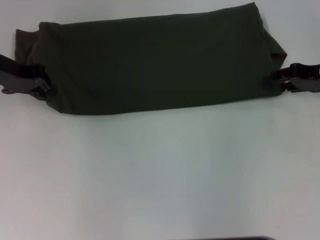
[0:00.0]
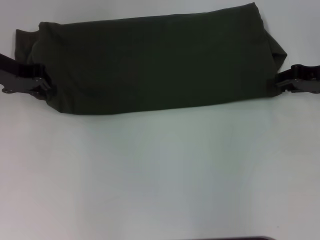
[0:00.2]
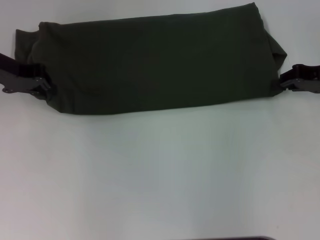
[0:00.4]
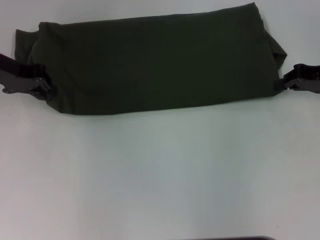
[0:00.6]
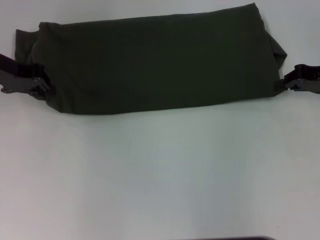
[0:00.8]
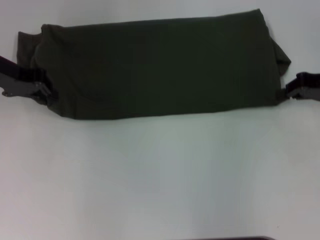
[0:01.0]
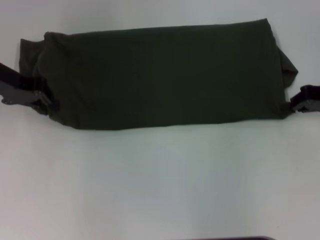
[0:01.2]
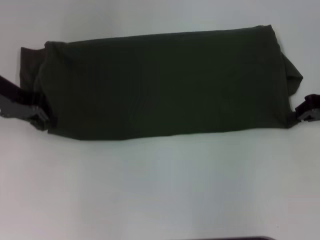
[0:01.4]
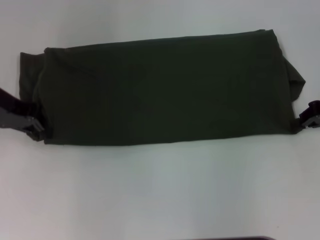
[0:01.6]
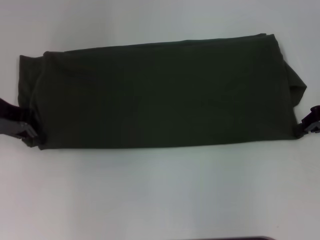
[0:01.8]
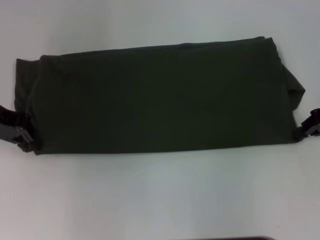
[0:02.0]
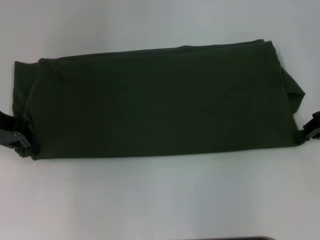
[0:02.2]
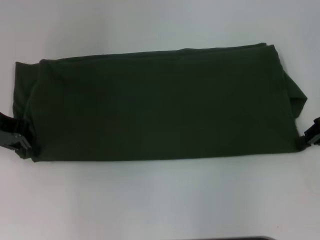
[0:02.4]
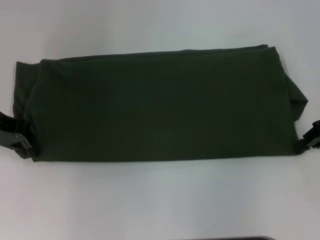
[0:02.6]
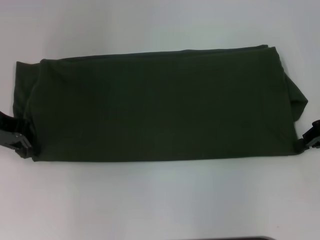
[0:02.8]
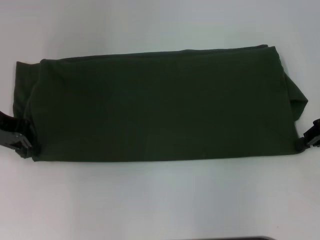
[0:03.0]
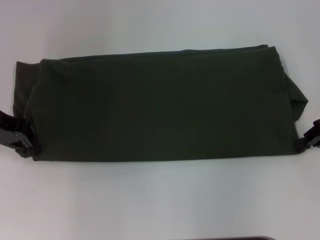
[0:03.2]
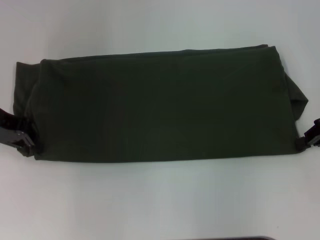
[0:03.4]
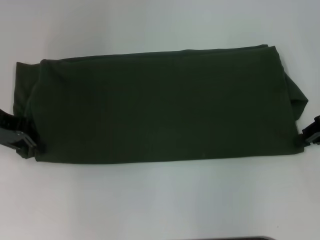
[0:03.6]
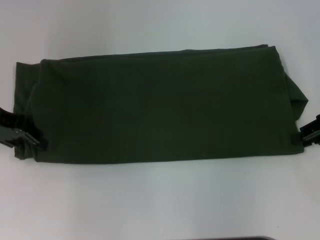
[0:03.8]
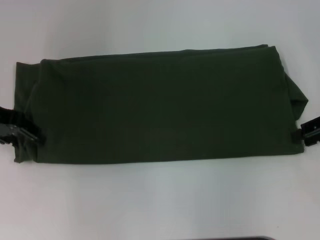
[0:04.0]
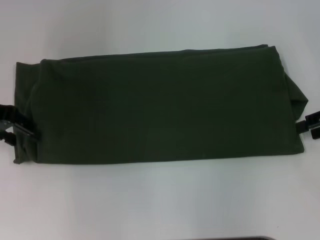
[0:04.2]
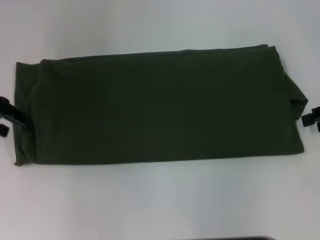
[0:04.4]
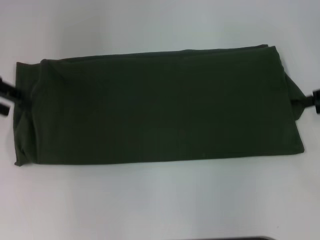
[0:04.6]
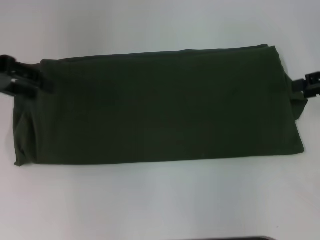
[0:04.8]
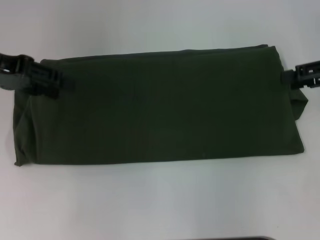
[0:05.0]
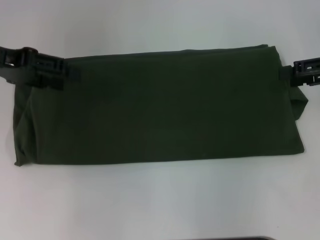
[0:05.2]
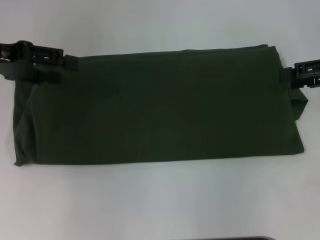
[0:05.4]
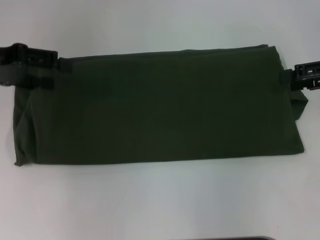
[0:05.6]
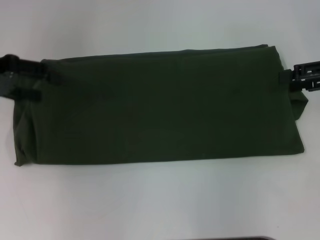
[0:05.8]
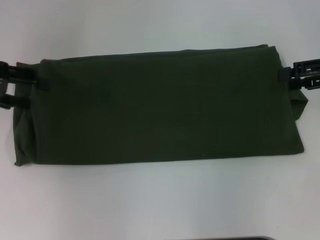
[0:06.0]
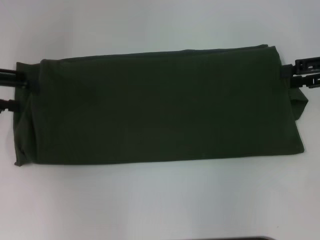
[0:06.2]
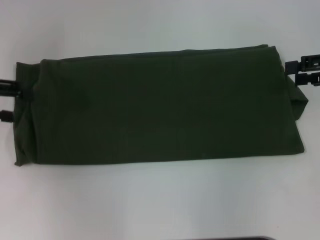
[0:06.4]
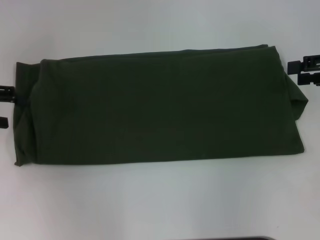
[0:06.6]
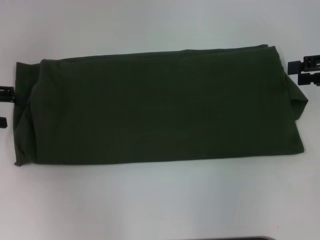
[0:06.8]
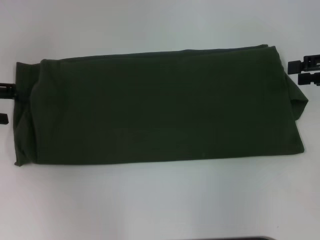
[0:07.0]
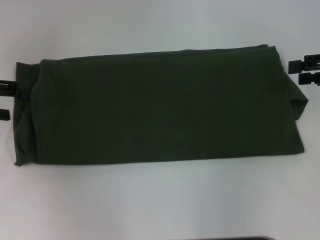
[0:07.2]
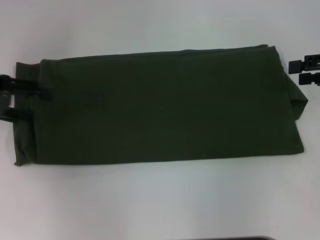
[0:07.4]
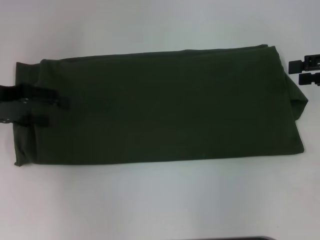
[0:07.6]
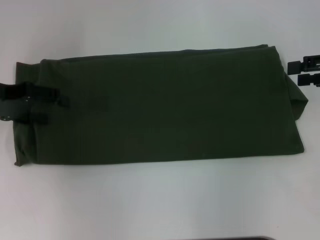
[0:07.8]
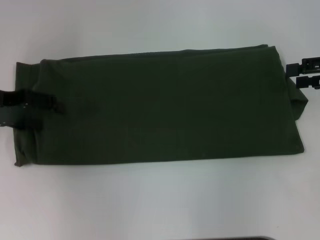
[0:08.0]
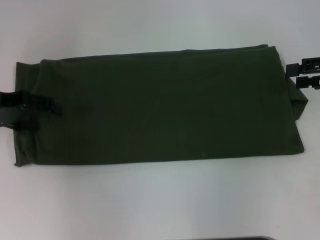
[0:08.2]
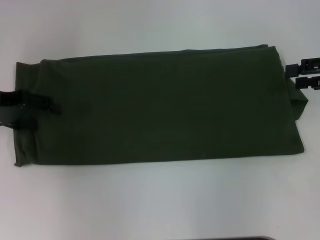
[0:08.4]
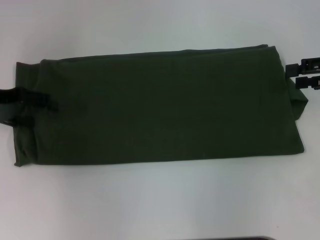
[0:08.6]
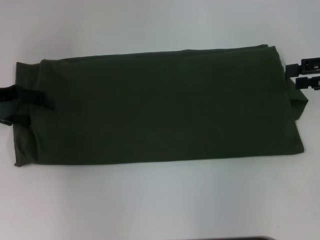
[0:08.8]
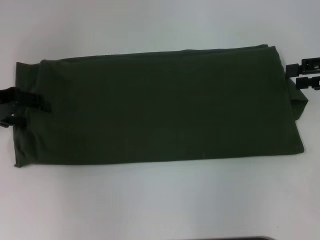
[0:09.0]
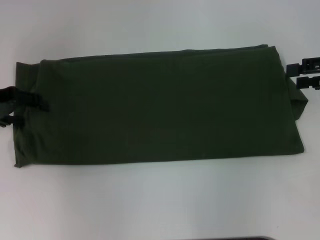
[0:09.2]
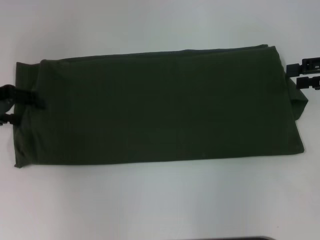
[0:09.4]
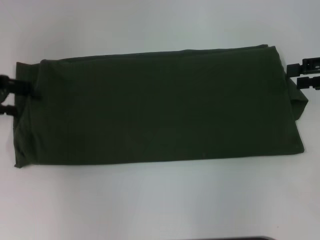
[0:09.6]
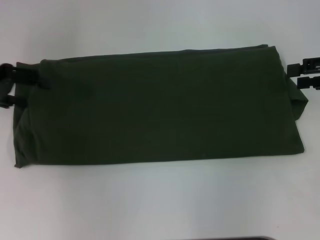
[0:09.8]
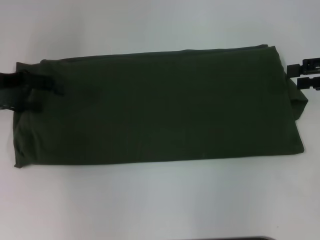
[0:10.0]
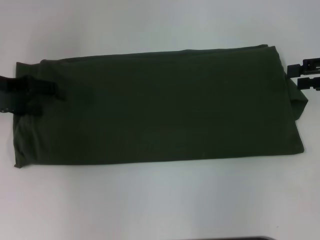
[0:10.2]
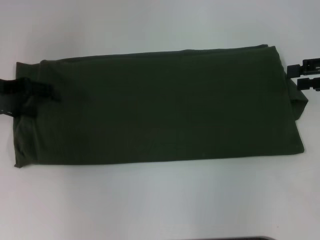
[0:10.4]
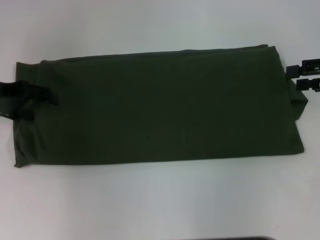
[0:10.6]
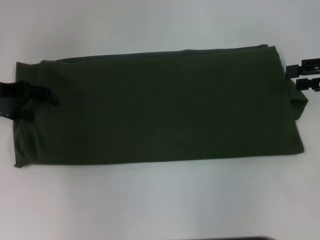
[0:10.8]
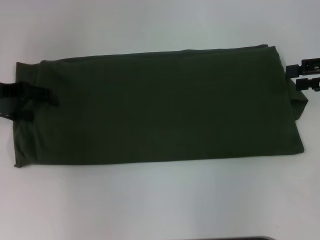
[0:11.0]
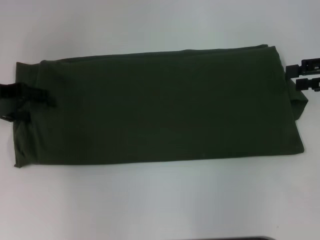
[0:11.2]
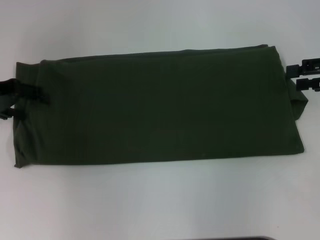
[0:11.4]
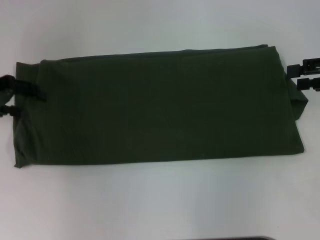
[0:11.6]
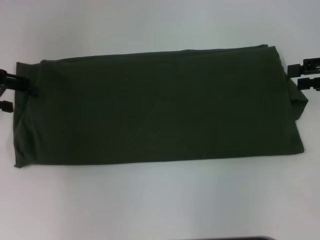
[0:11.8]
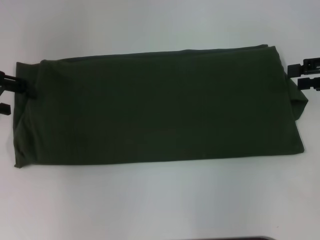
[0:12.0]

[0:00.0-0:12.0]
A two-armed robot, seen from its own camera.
0:00.0 to 0:01.6: The right gripper closes its fingers.
0:01.6 to 0:03.0: There are only small adjustments of the grippers.
0:03.0 to 0:04.4: The right gripper opens its fingers. The left gripper opens.
0:06.0 to 0:10.4: There are only small adjustments of the grippers.

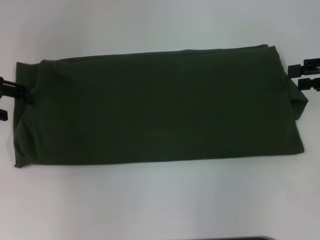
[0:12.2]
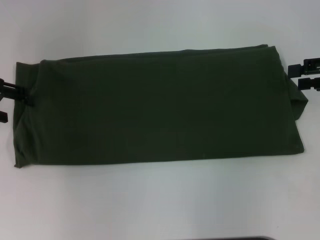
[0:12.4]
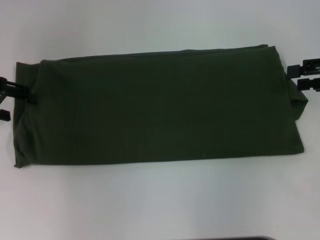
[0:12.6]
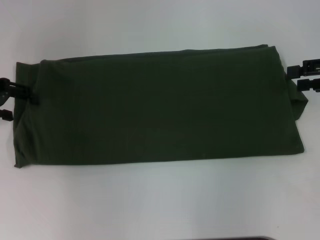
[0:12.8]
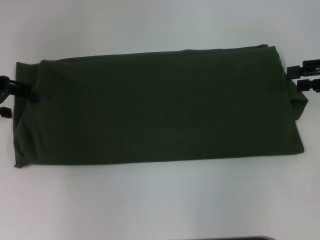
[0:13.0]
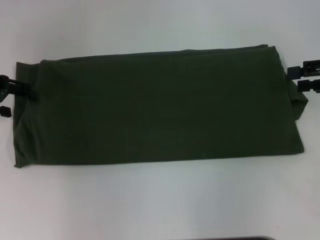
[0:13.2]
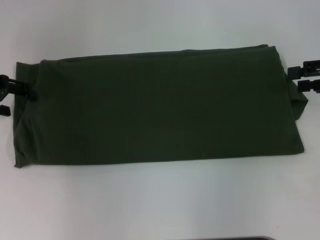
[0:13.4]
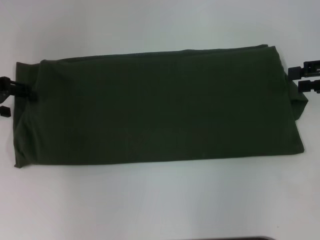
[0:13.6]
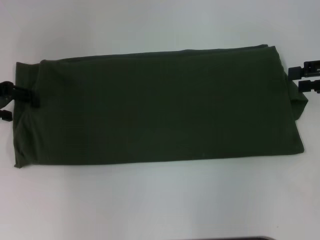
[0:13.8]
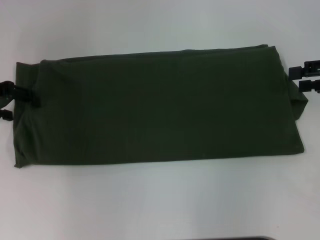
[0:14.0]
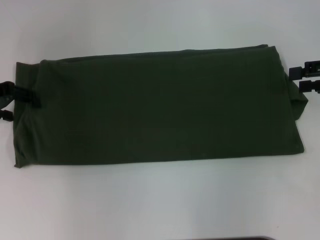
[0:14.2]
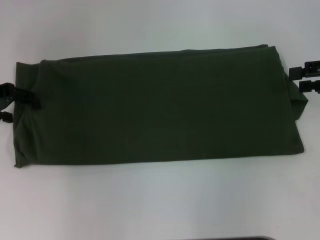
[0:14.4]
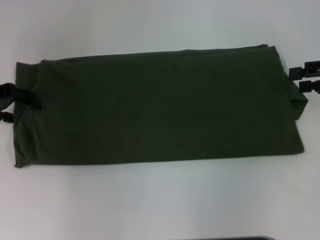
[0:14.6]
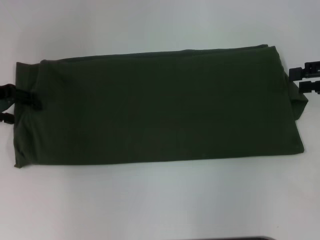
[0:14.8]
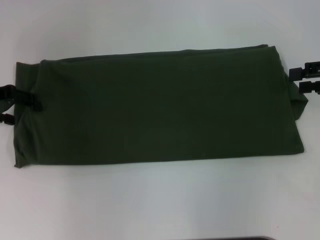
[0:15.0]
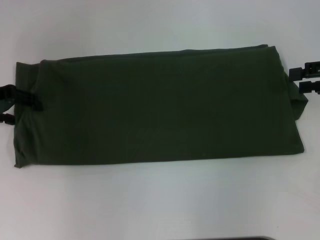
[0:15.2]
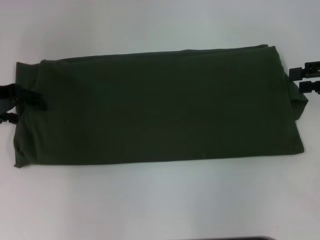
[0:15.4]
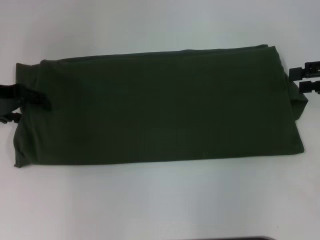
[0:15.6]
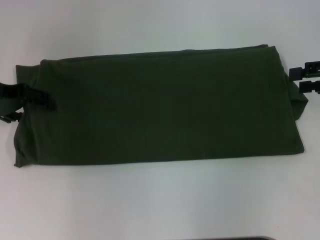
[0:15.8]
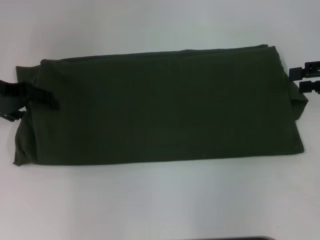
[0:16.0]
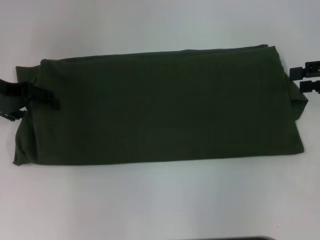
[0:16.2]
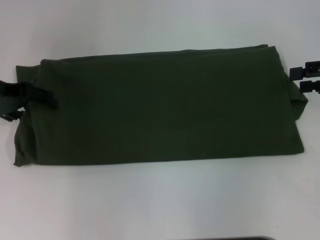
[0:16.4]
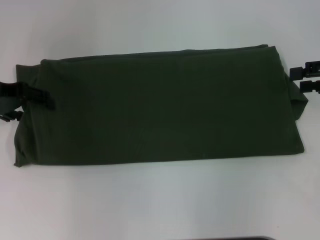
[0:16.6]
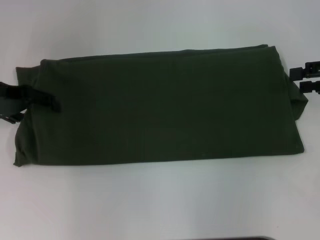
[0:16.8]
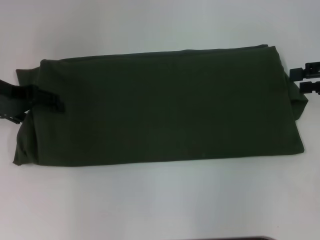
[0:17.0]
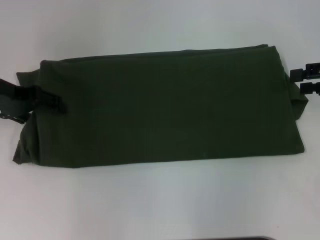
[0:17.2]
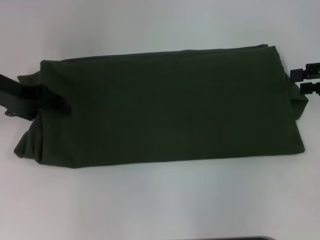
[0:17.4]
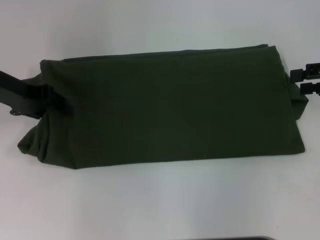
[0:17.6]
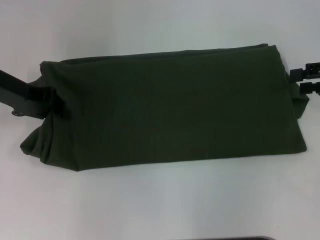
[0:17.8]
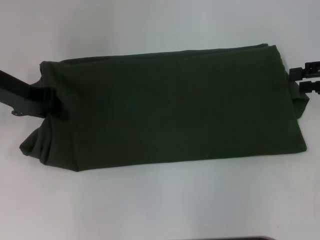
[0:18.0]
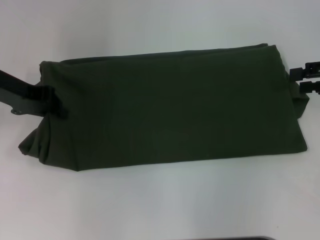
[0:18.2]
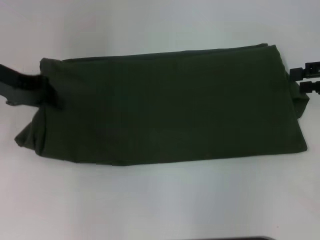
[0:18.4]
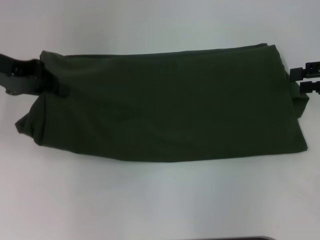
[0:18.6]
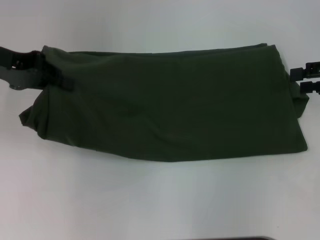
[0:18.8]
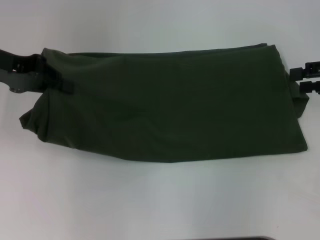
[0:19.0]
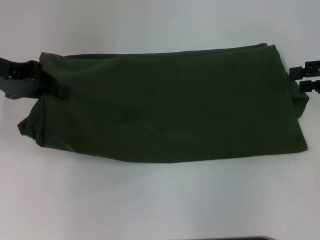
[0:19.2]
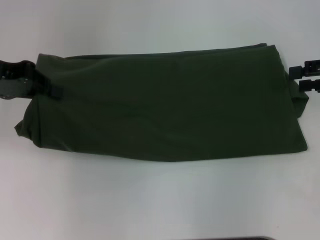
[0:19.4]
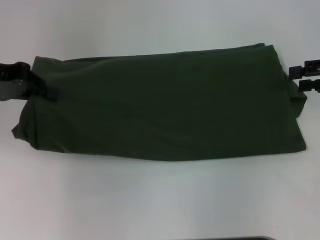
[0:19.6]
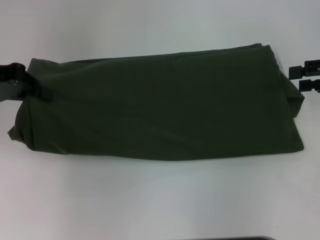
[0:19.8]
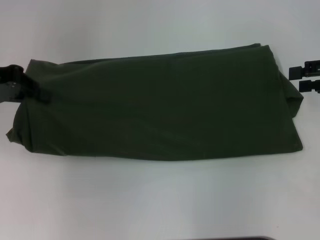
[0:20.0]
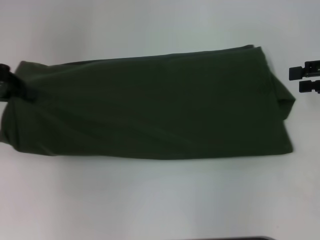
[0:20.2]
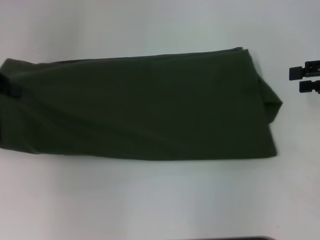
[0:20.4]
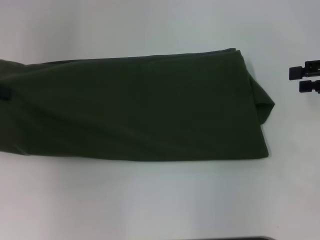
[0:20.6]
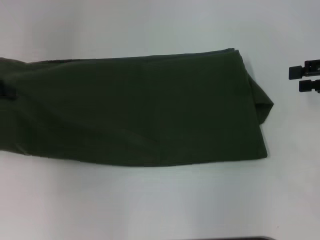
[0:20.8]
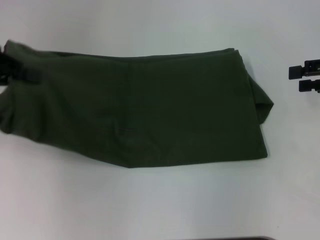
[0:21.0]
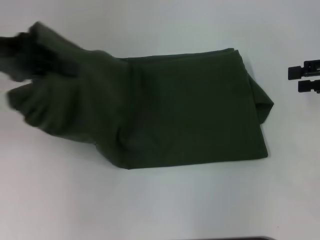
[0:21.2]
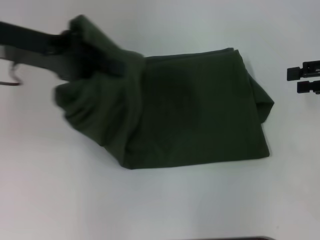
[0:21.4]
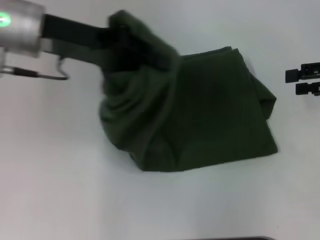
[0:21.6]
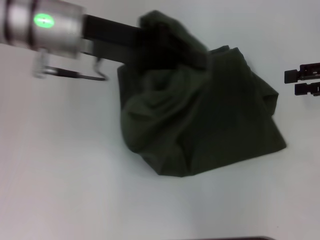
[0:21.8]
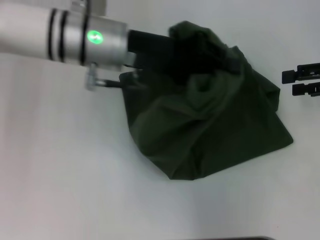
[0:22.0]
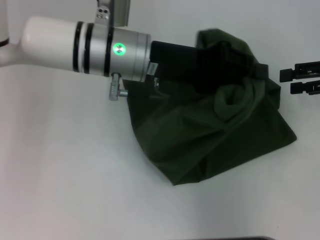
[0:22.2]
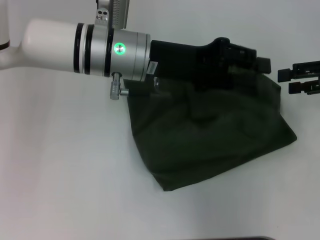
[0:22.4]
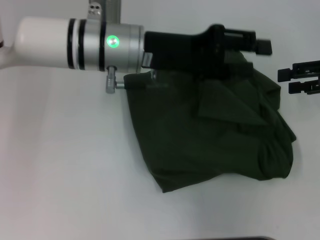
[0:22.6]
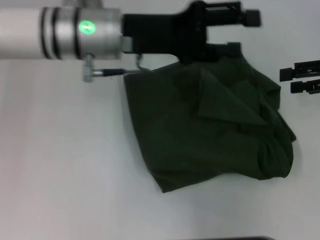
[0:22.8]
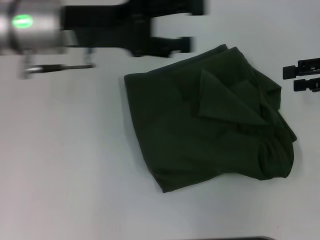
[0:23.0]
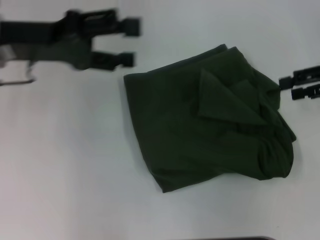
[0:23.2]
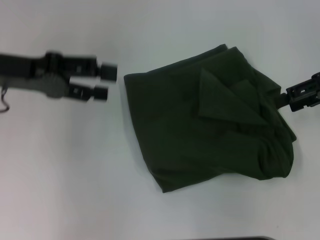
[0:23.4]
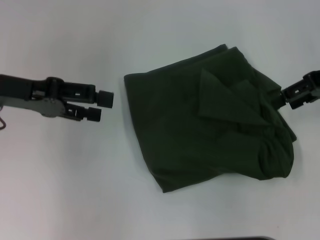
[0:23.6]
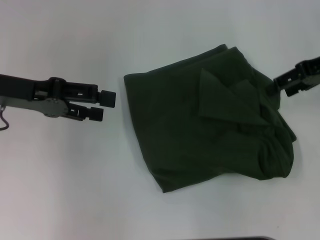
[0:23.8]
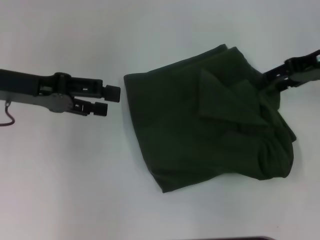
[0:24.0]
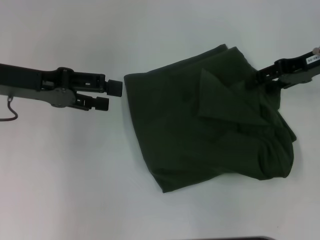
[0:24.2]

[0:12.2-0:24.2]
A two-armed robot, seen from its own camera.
Step, 0:12.2 to 0:22.4: Fold the clothes with your left hand.
0:13.8 to 0:15.2: Neither gripper changes place.
0:15.2 to 0:16.6: The grippers move only a little.
0:16.6 to 0:18.2: The left gripper closes up.
0:18.2 to 0:19.8: The left gripper ends up some 5 cm from where it was.
0:19.8 to 0:21.2: There are only small adjustments of the grippers.
0:21.2 to 0:22.6: The left gripper heads to the right, covering roughly 20 cm, and opens.
0:22.6 to 0:24.2: The right gripper goes approximately 10 cm to the left and forward; the left gripper shifts approximately 15 cm to the left, and opens up.
